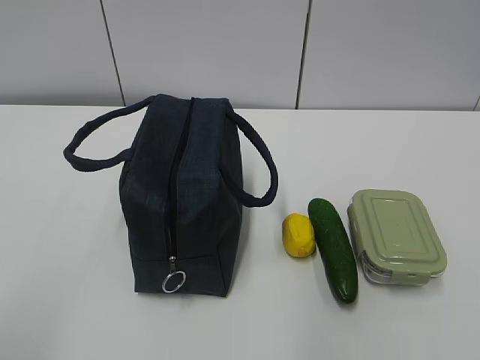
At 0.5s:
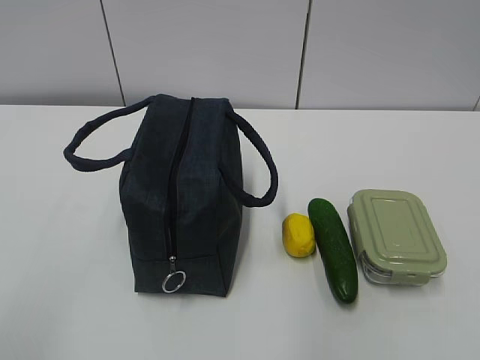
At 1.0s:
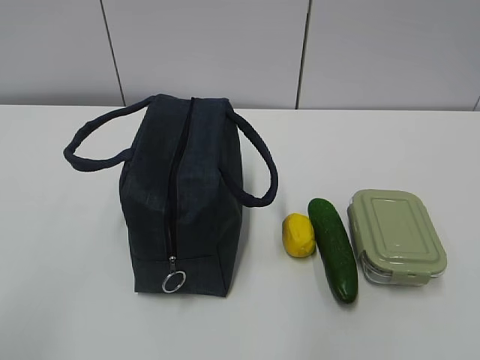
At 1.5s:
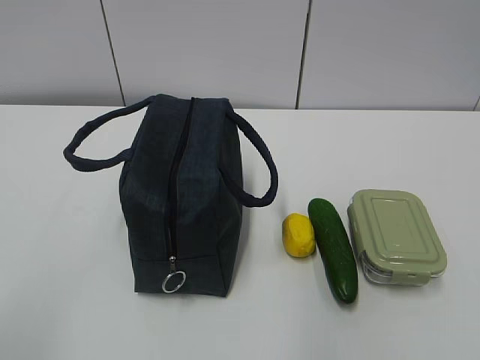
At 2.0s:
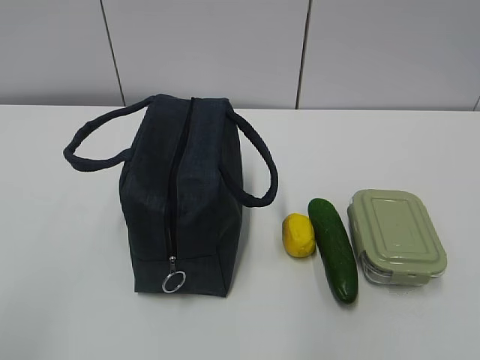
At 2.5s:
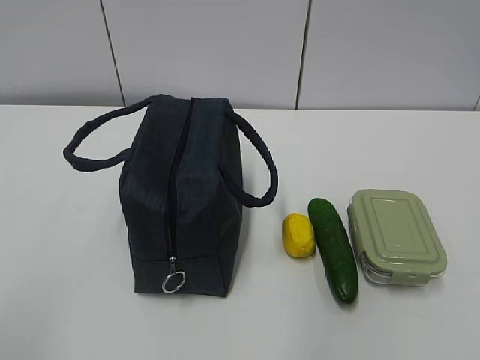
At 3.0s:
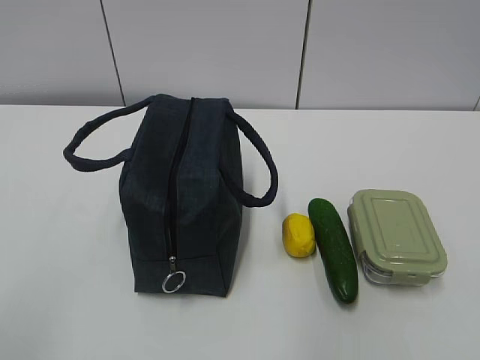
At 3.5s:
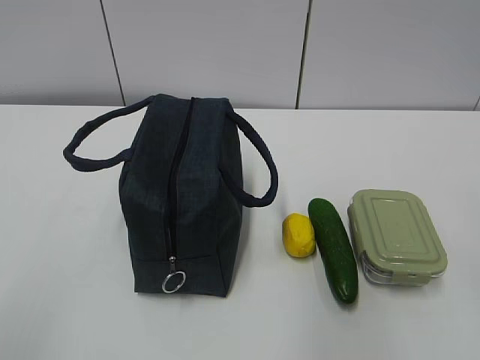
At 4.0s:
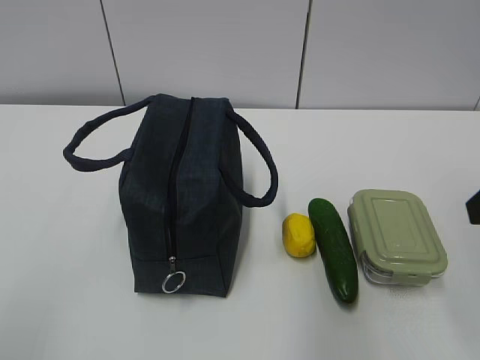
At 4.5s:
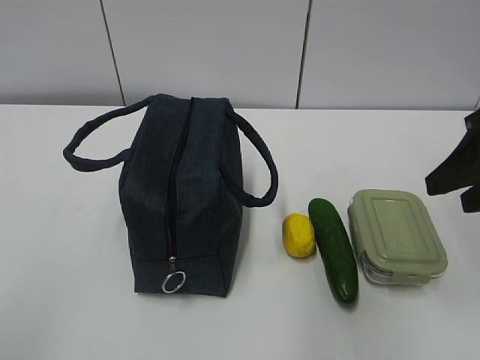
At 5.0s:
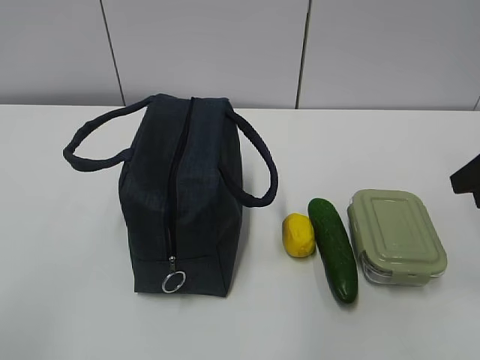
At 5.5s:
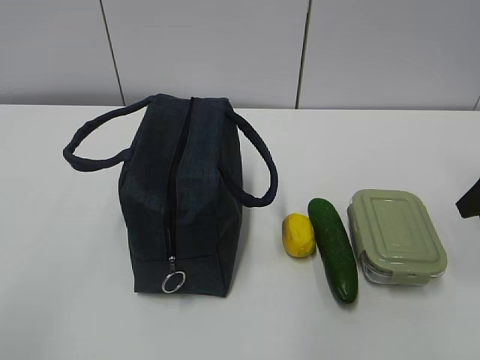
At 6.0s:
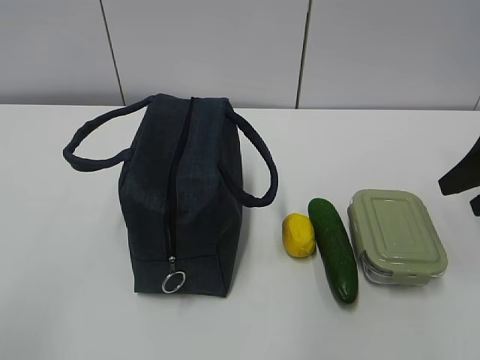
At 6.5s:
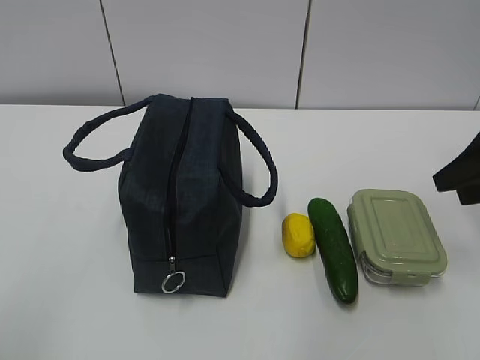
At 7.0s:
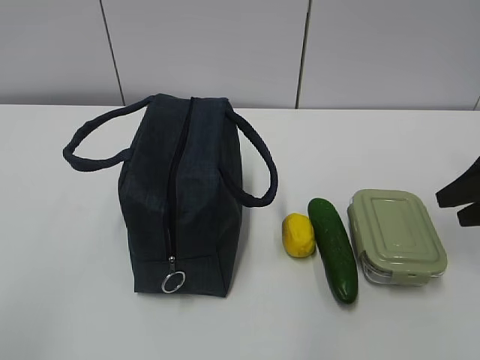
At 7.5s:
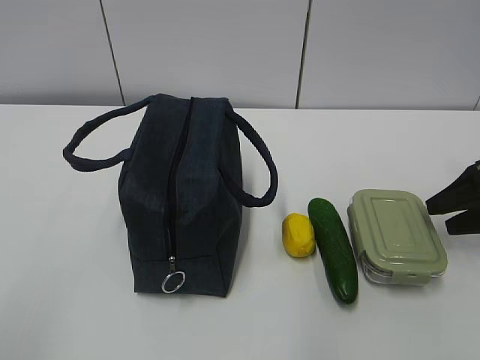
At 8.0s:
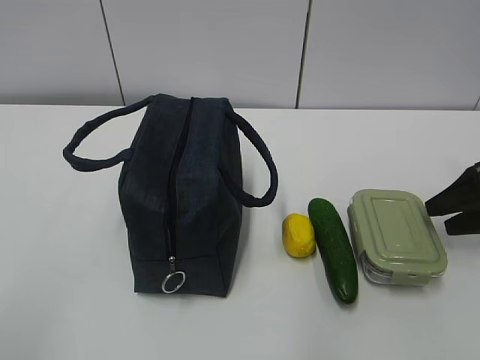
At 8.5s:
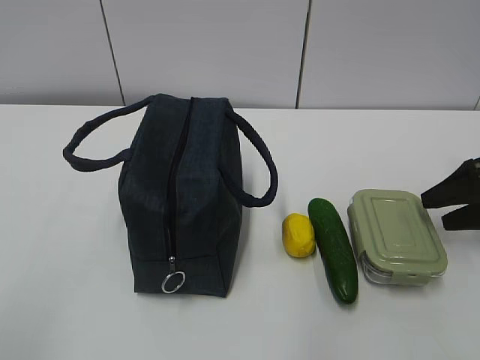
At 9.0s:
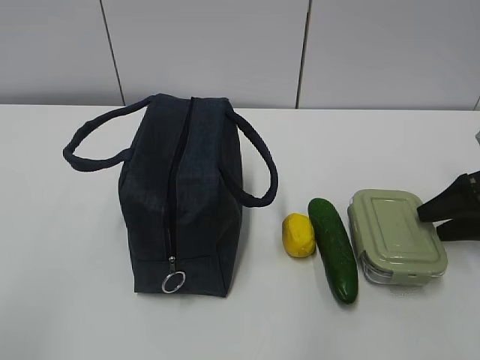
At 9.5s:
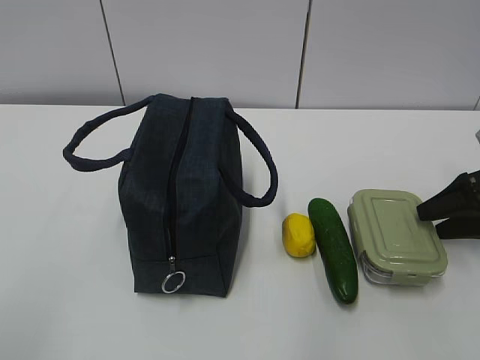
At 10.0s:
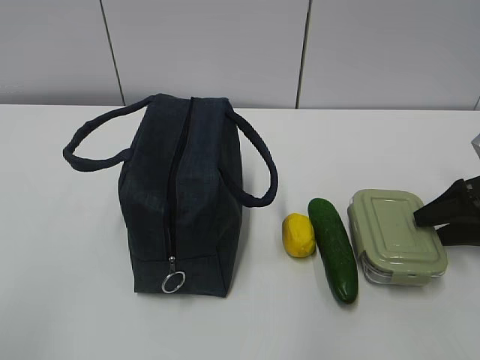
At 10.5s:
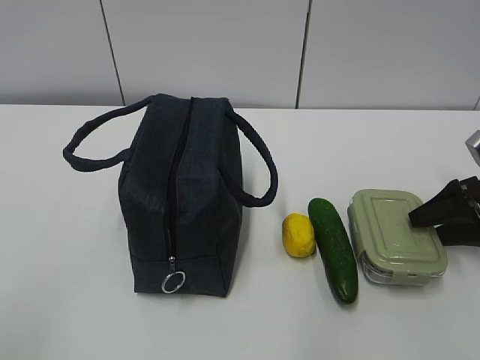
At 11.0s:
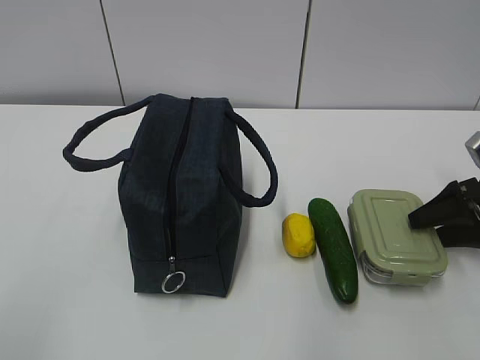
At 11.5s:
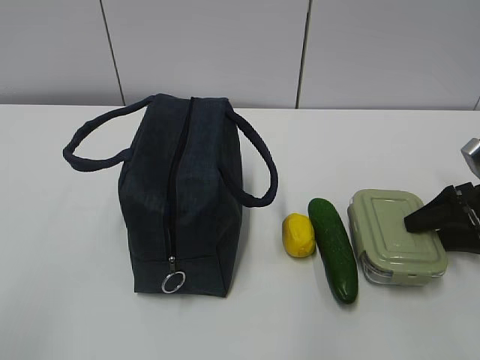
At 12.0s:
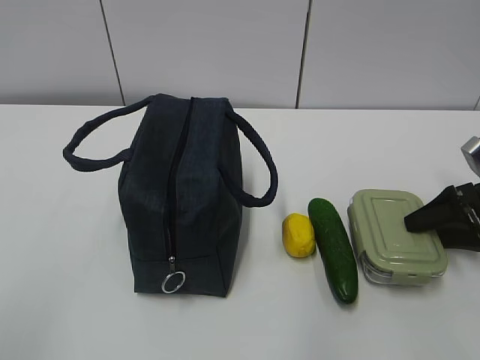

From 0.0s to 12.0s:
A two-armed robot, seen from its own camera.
From 4.0s to 6.0s: The right gripper shifts about 15 cm forward, to the right and downward.
From 6.0s to 8.0s: The right gripper travels downward by roughly 10 cm.
From 8.0s to 10.0s: The grippers make only small movements.

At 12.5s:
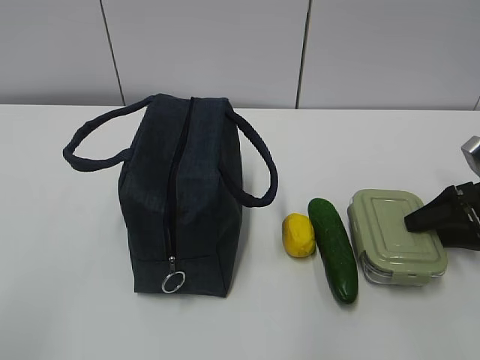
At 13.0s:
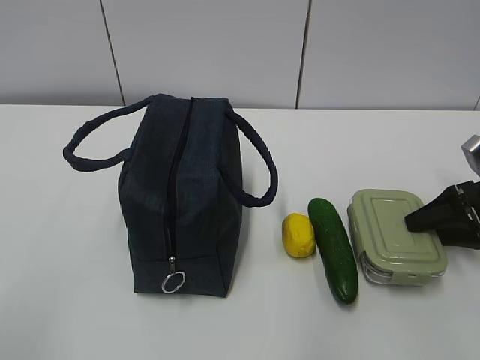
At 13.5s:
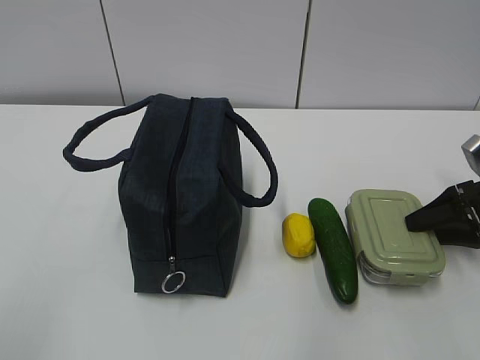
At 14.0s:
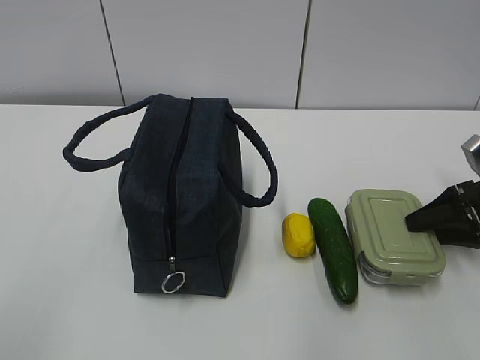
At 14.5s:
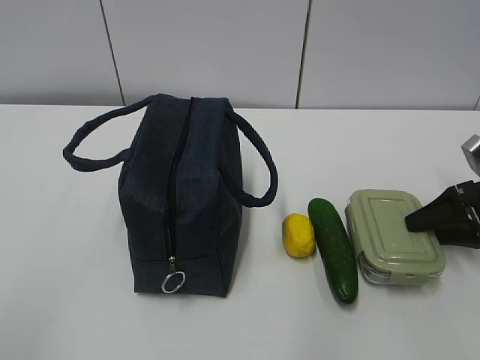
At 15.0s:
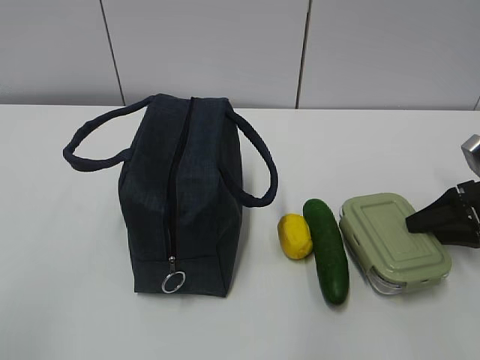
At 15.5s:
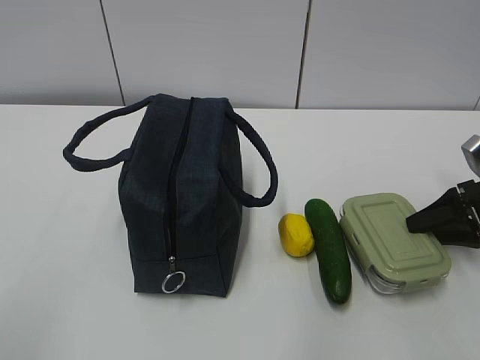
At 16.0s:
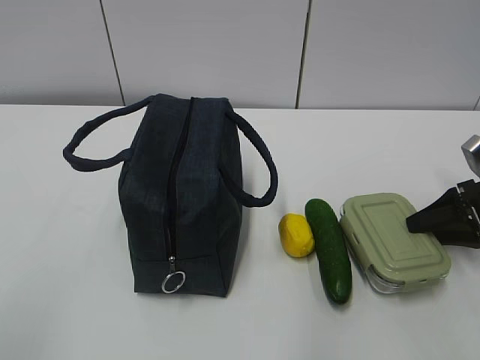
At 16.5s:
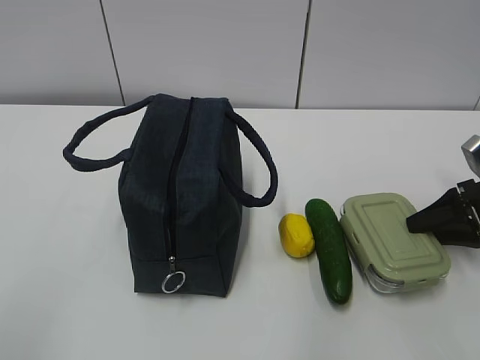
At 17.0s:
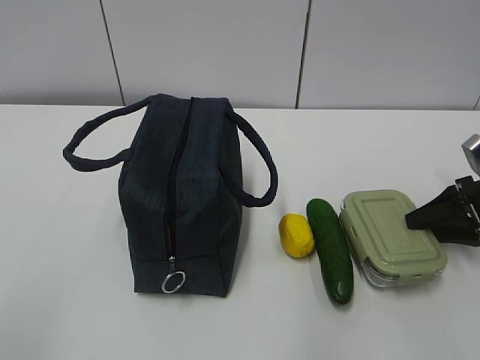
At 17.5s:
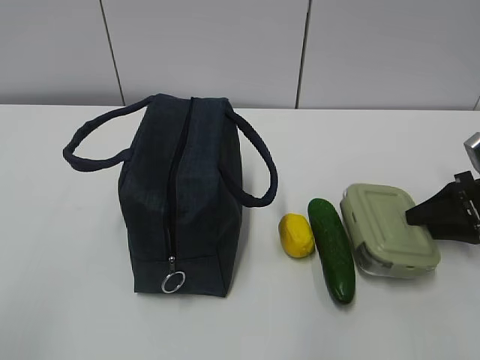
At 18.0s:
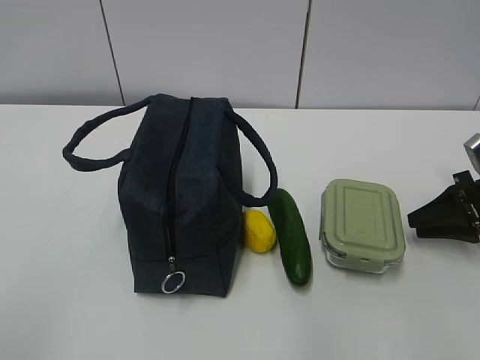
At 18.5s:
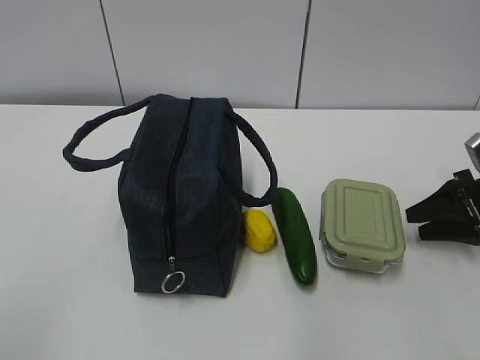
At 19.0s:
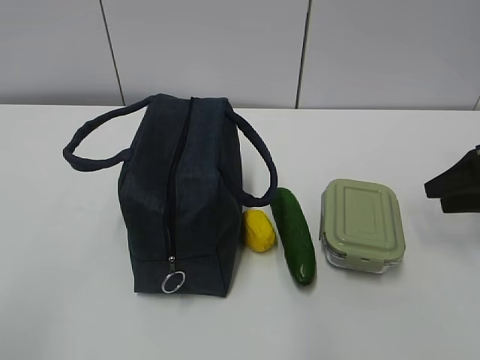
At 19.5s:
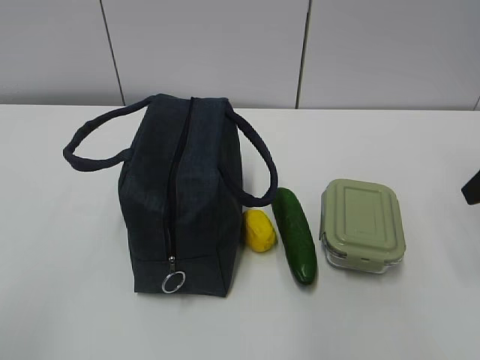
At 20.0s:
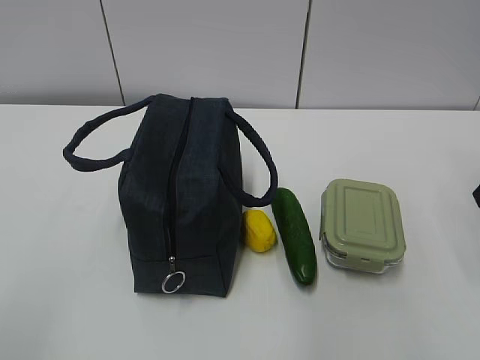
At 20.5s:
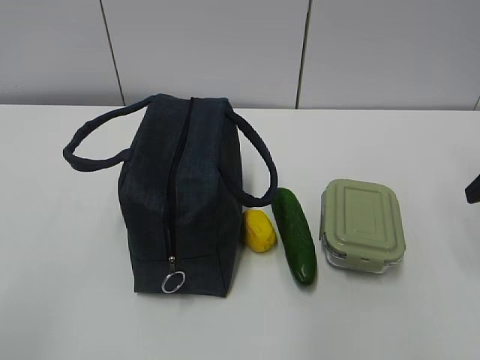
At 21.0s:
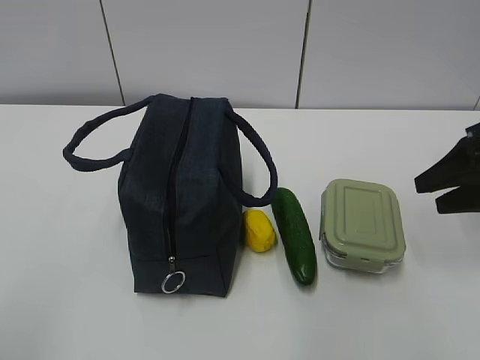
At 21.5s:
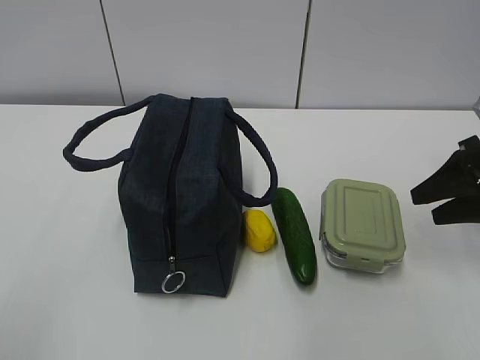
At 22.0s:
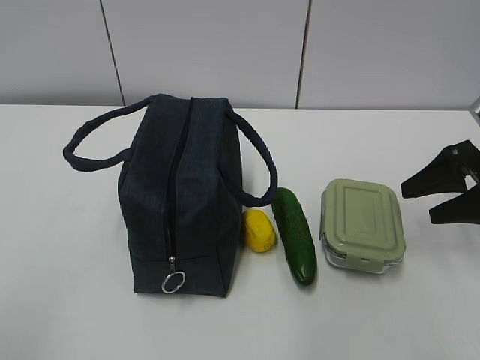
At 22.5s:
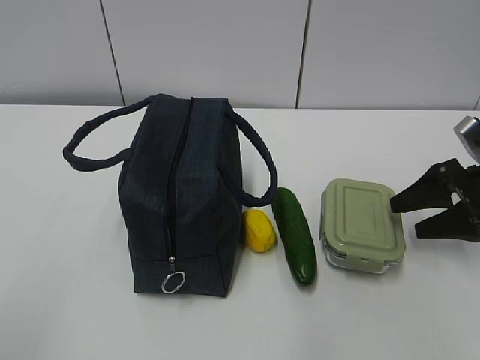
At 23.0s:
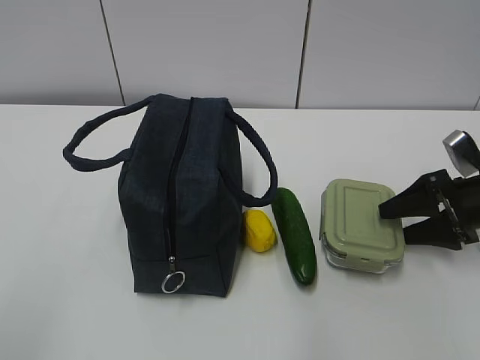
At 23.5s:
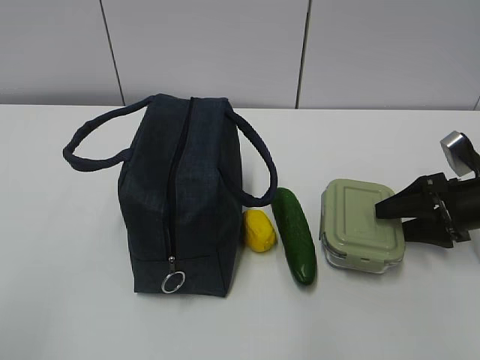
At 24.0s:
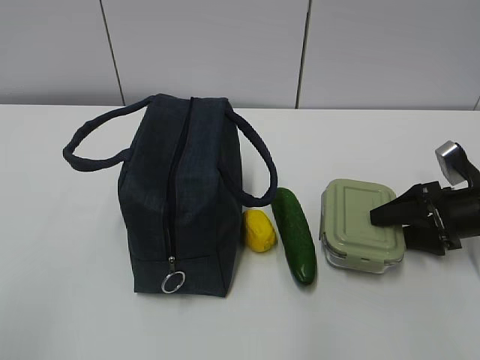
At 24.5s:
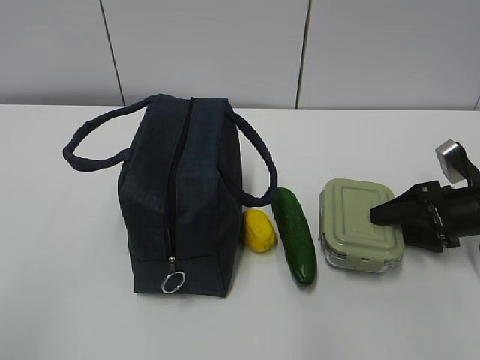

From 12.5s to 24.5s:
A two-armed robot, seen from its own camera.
Step, from 12.5s to 23.5s: Grab the lunch box with your right hand.
From 12.5s to 16.5s: The two grippers keep their place.
From 16.5s to 18.5s: The grippers move only a little.
From 18.5s to 20.5s: The right gripper shifts approximately 15 cm upward.
From 20.5s to 22.5s: The right gripper shifts about 10 cm downward.
From 22.5s to 24.5s: The right gripper heads downward, covering some 5 cm.

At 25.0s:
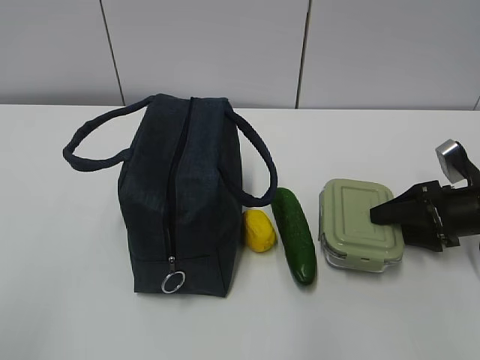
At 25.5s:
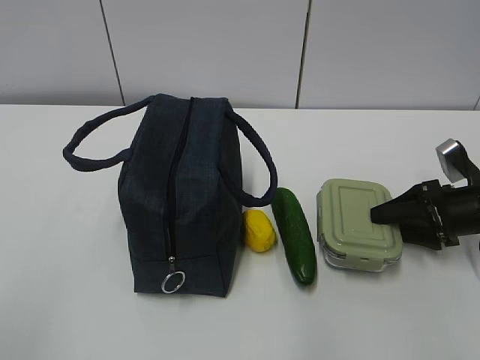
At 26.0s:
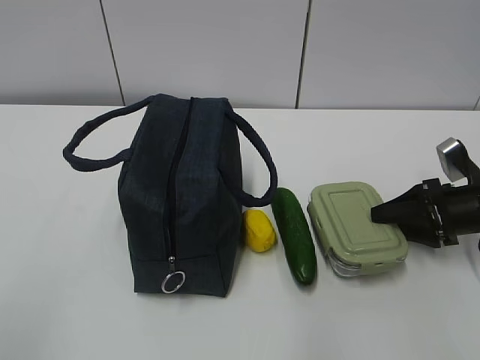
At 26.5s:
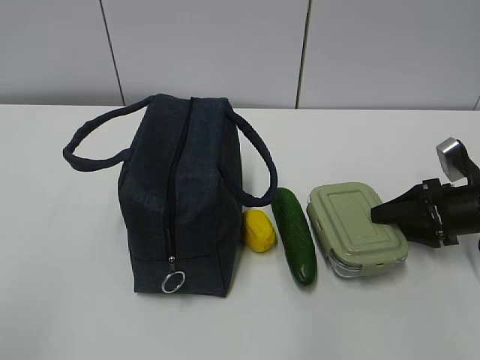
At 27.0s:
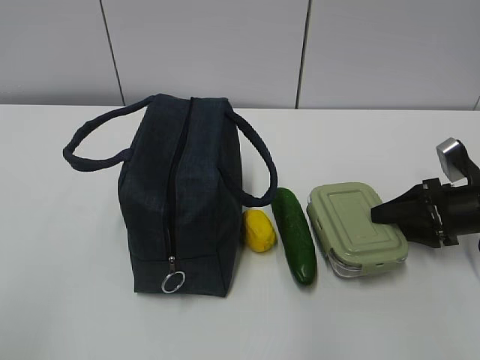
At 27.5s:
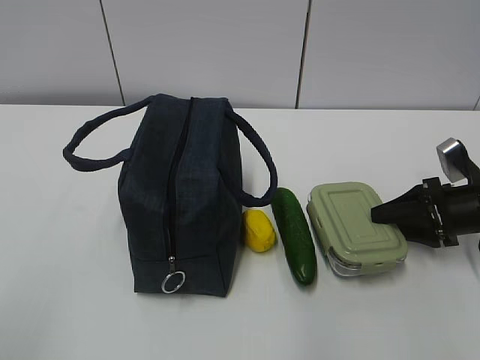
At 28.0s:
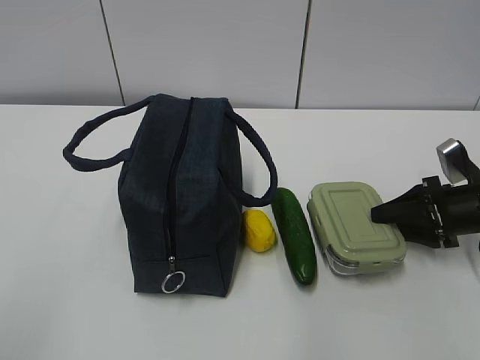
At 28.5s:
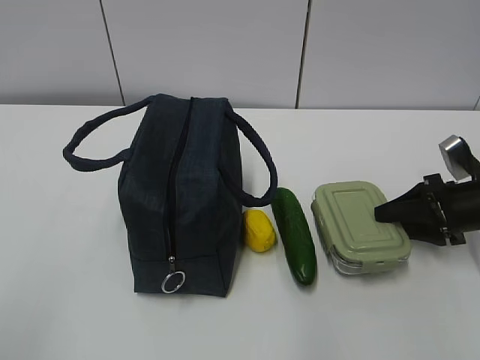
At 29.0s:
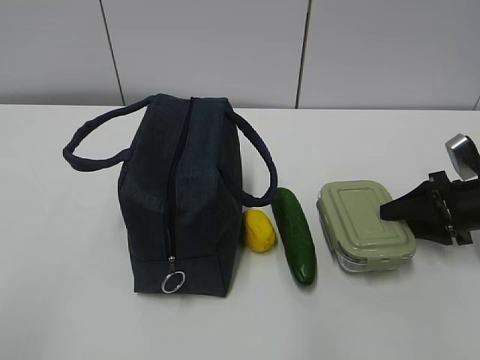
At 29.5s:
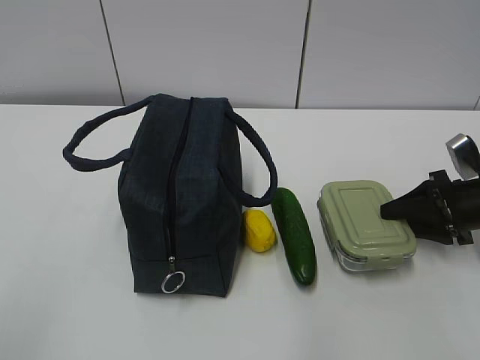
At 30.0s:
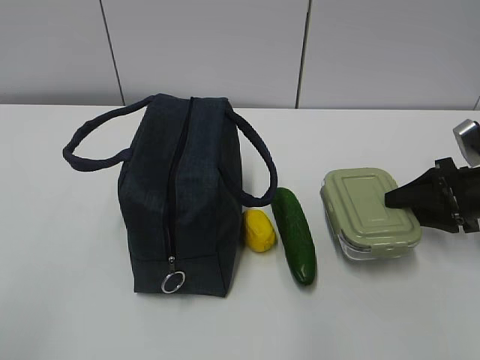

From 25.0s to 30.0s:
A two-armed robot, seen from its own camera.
From 25.0s to 27.5s: Neither gripper changes place.
From 27.5s to 30.0s: The grippers stay close to where they were, moving slightly.
